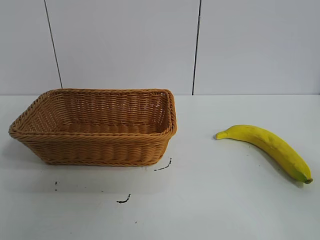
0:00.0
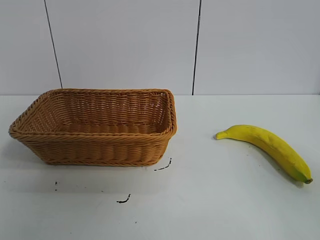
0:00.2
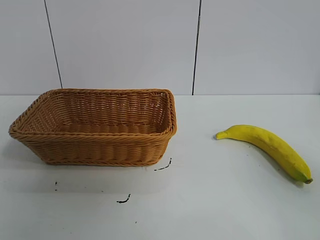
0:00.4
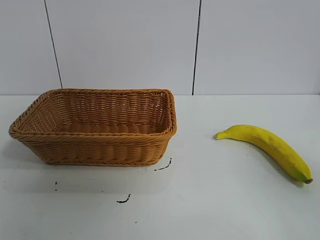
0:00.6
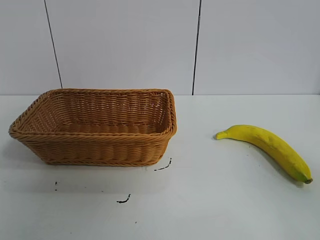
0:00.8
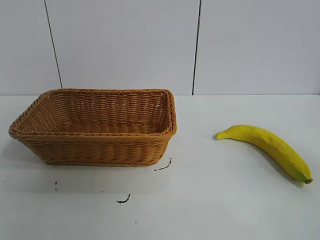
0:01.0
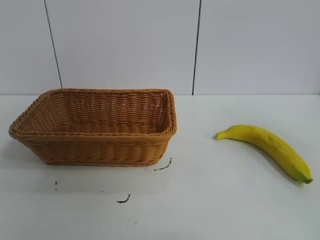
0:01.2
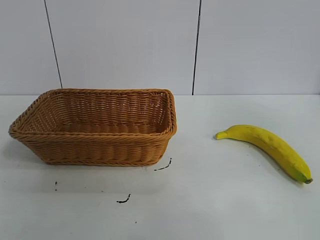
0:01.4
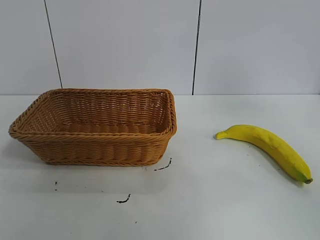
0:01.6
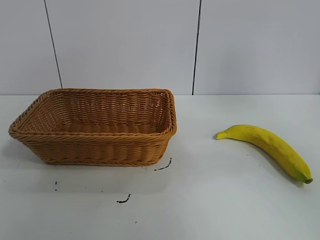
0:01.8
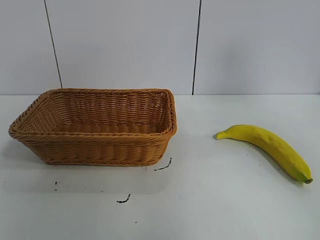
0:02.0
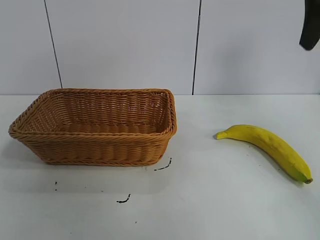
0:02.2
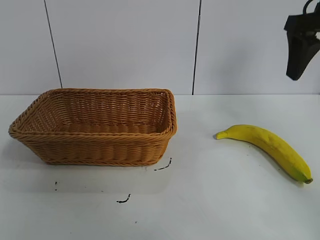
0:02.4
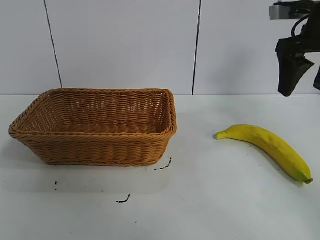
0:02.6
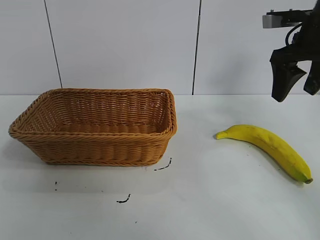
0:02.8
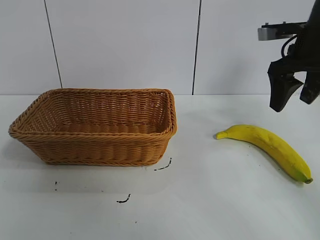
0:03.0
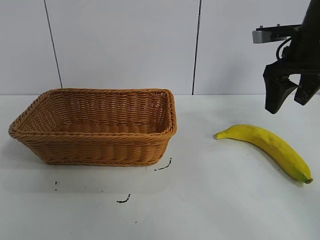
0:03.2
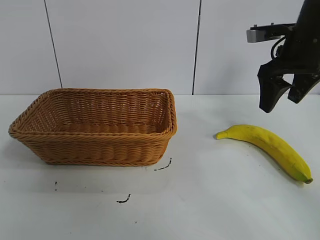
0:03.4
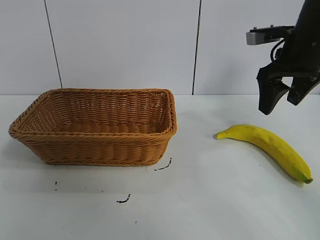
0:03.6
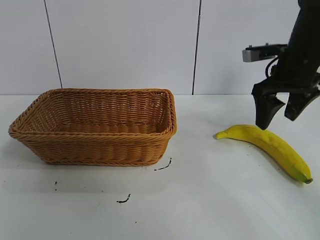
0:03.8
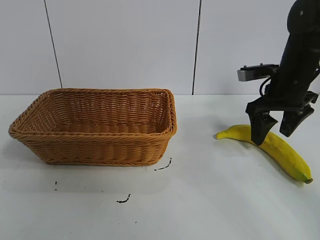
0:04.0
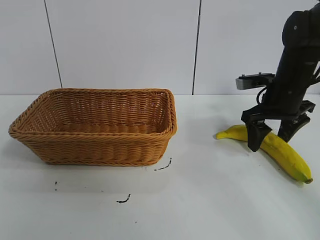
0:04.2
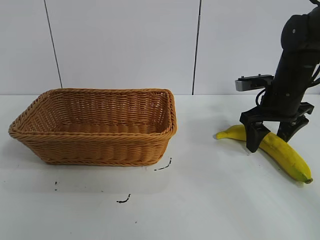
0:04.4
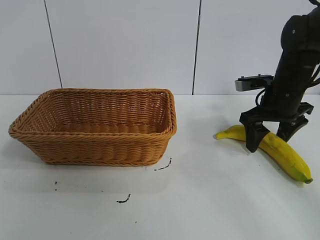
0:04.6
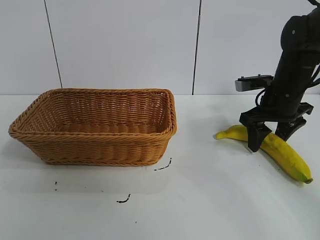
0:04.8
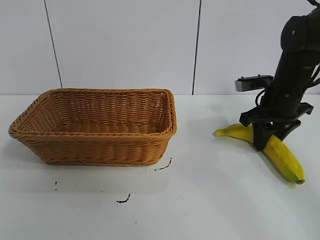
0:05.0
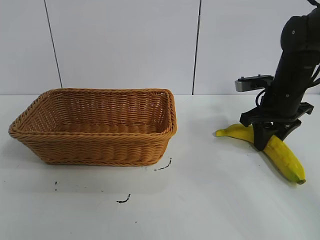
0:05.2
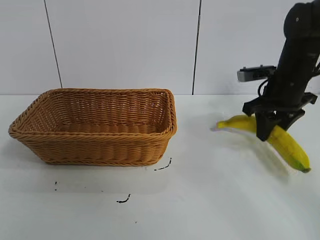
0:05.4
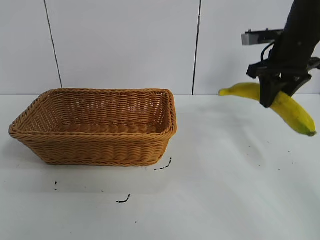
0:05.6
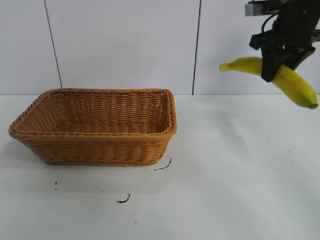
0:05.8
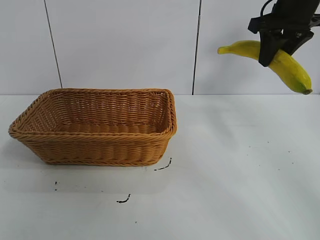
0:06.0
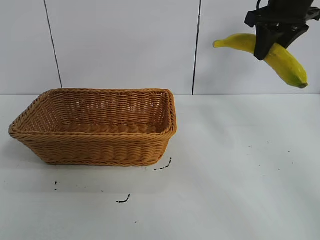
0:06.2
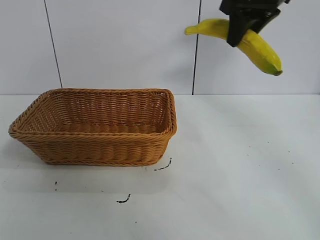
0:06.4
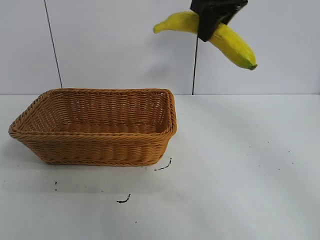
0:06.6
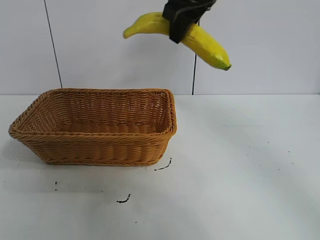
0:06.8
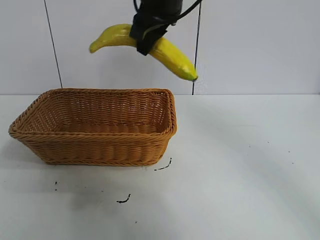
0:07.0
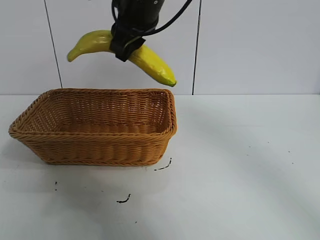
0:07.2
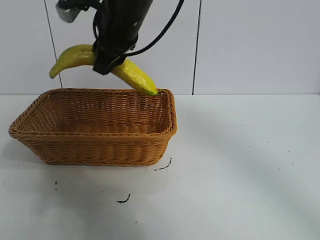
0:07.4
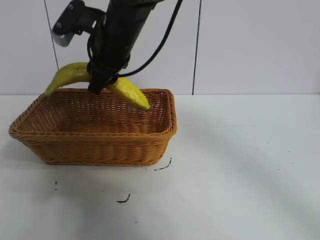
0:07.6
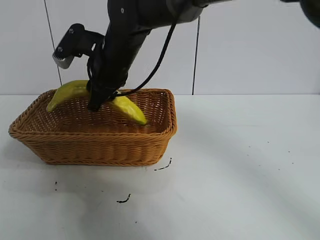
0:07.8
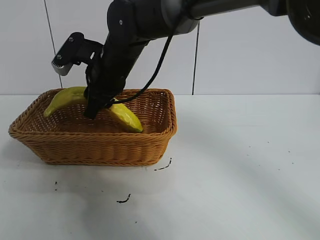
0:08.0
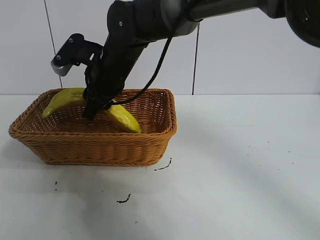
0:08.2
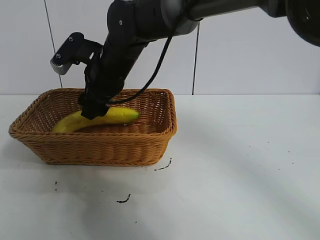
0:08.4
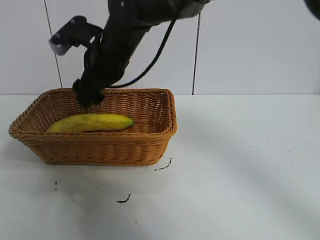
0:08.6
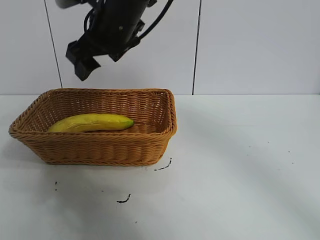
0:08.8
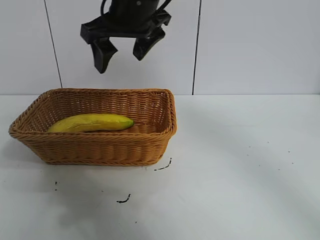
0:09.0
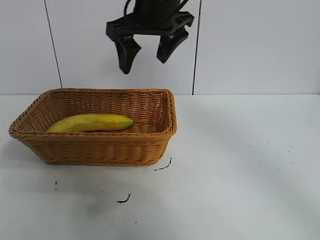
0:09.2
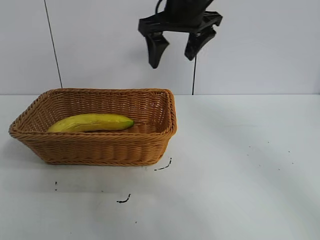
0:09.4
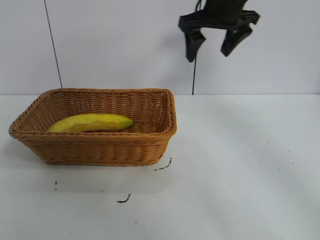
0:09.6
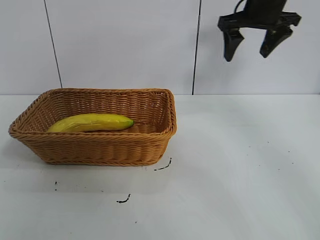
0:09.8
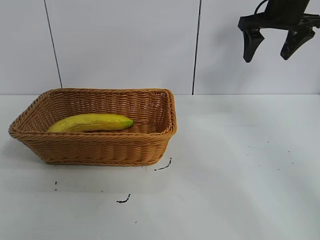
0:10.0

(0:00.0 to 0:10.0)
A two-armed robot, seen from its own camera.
Task of the whole recording: pick up the banana and put it into the basket.
Step, 0:01.0 - 0:05.0: Grasp the banana with right gripper.
Step, 0:05.4 - 0:08.6: Place the banana in the basket with right gripper.

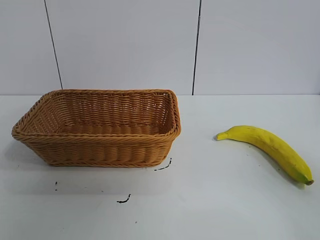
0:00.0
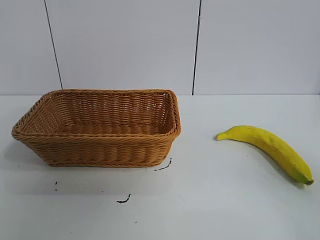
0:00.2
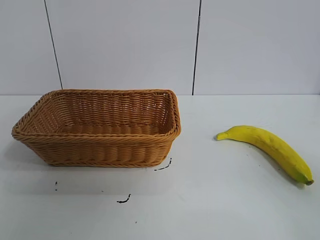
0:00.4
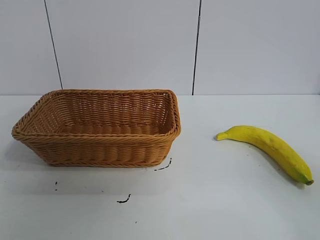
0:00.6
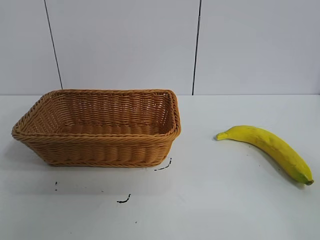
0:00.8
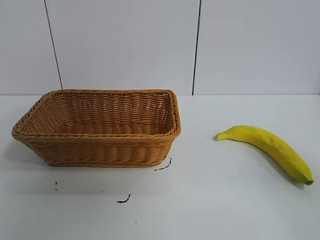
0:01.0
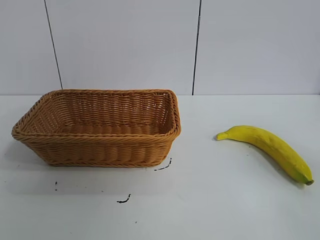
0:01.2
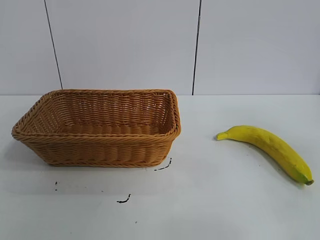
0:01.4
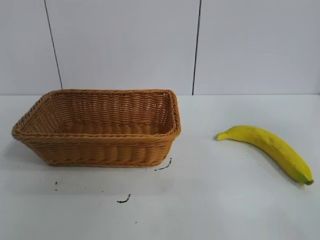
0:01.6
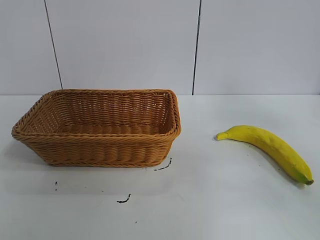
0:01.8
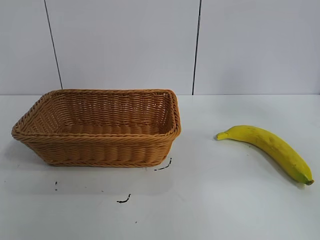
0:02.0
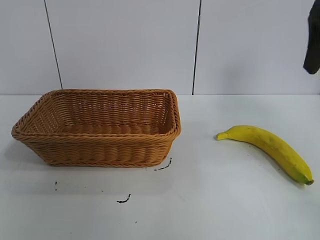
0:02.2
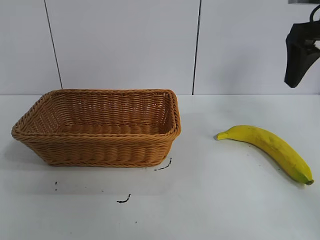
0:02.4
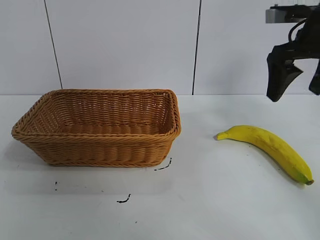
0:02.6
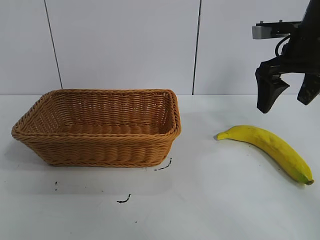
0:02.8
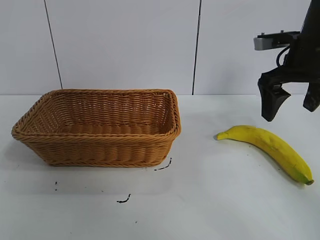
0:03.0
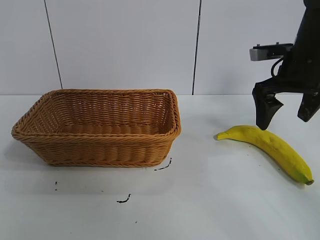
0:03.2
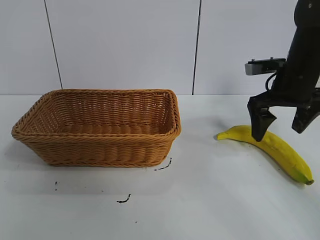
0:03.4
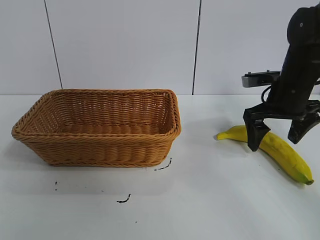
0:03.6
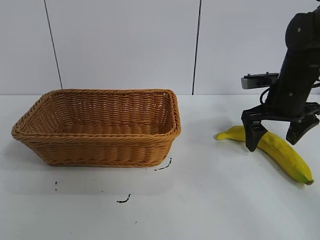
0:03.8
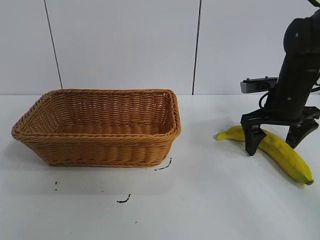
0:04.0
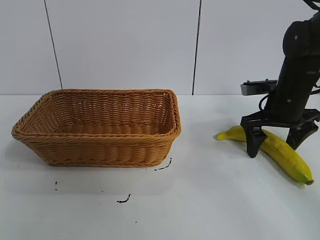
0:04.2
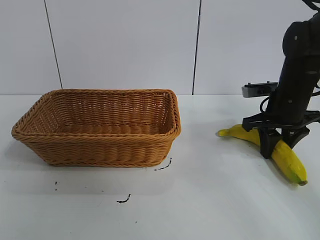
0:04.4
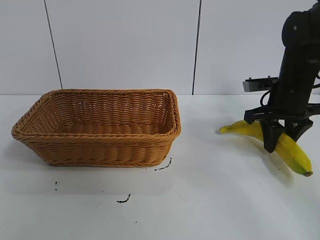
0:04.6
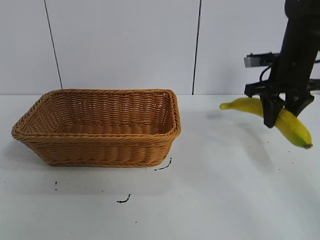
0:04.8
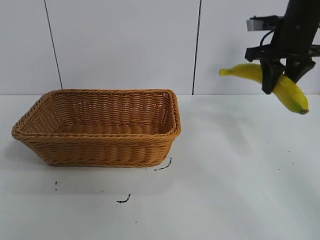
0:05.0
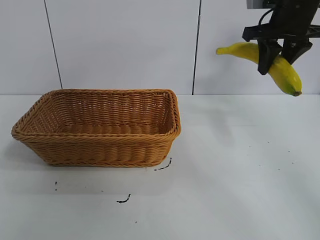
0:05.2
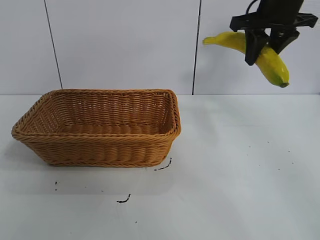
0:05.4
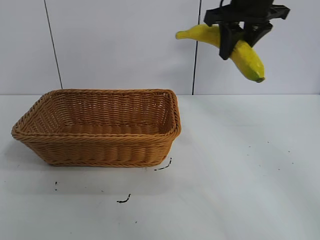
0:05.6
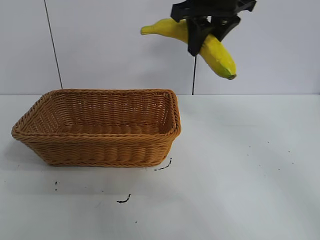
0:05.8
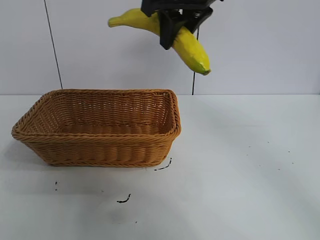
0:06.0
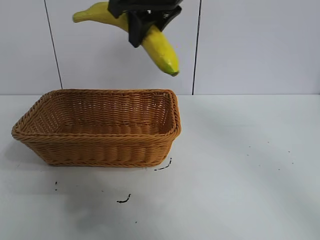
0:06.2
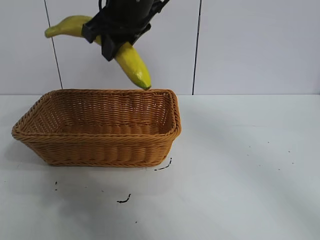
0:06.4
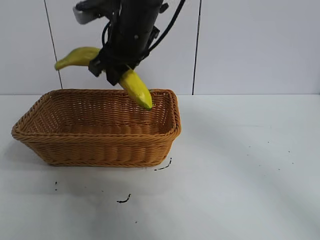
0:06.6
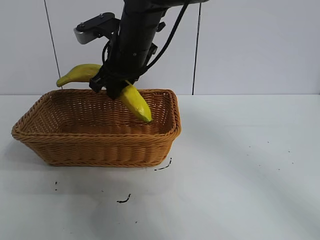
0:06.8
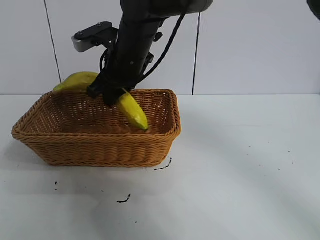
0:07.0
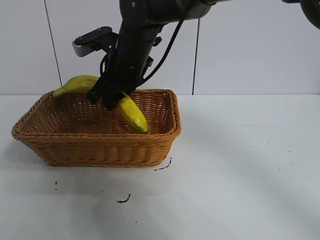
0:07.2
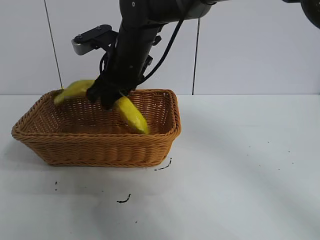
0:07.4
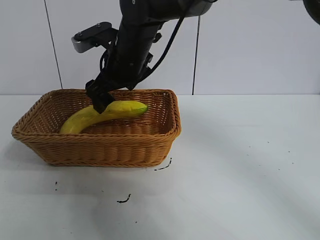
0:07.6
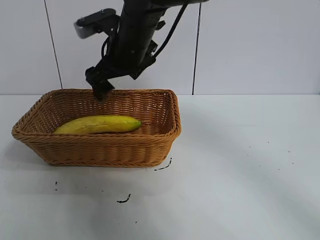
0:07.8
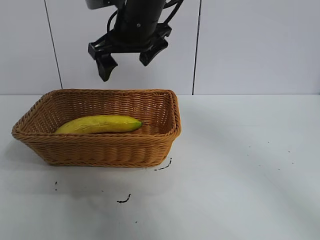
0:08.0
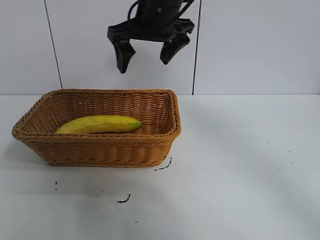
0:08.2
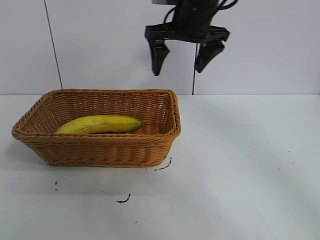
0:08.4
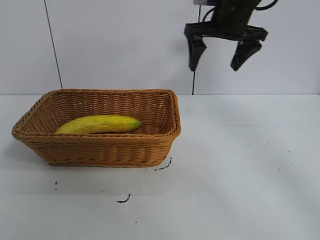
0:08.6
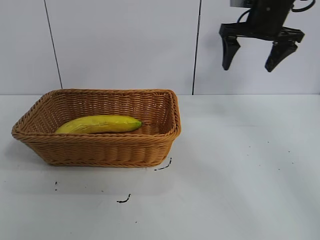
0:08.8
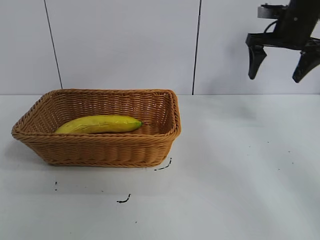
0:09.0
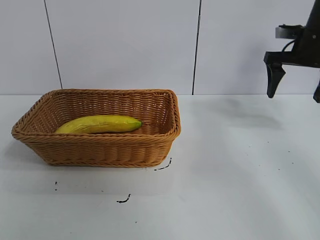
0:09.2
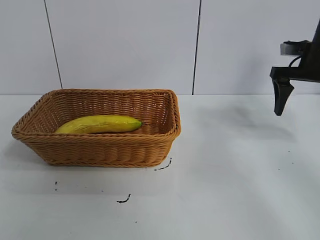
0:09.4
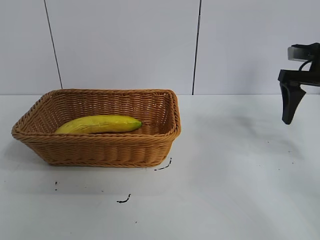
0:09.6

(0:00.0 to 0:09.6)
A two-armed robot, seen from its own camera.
Task of the whole recording: pick up the banana and put it into the basket.
Step, 0:01.0 - 0:04.6: Grasp the banana with right gripper.
Step, 0:04.8 - 0:07.6: Place the banana in the basket with right gripper.
